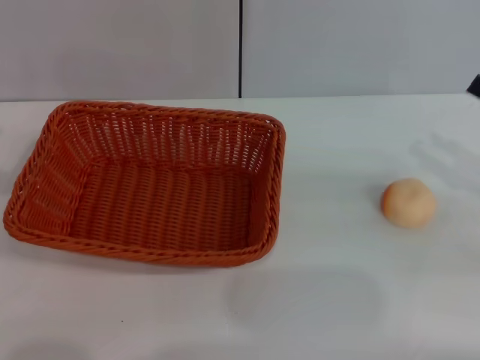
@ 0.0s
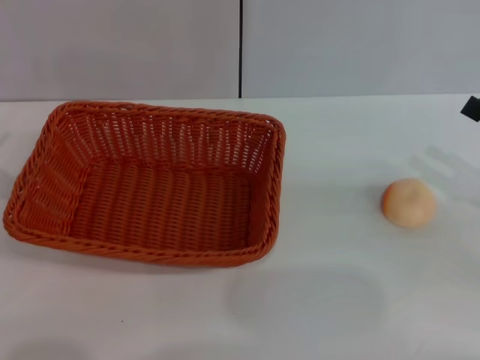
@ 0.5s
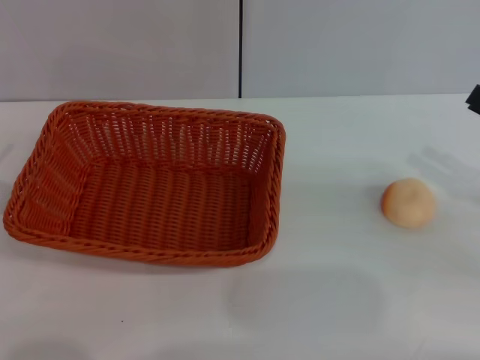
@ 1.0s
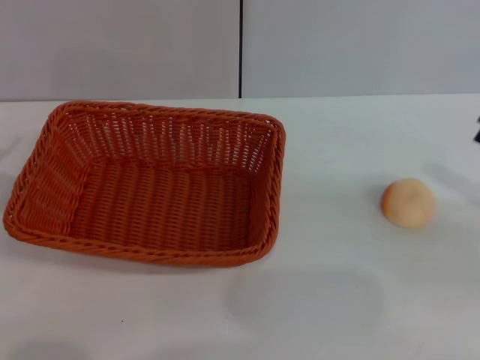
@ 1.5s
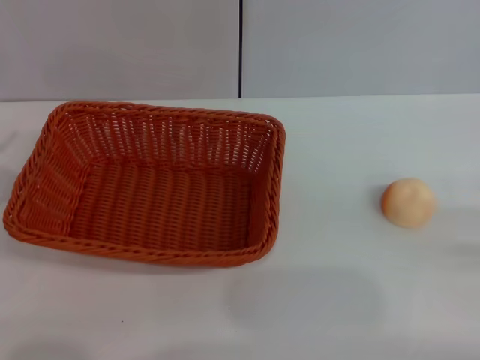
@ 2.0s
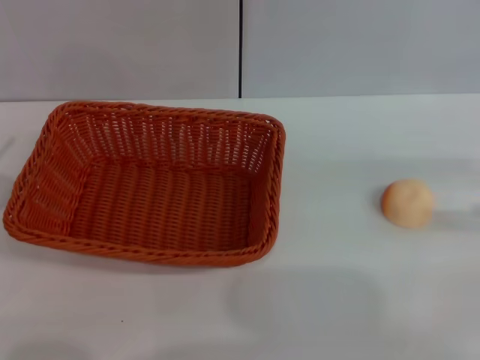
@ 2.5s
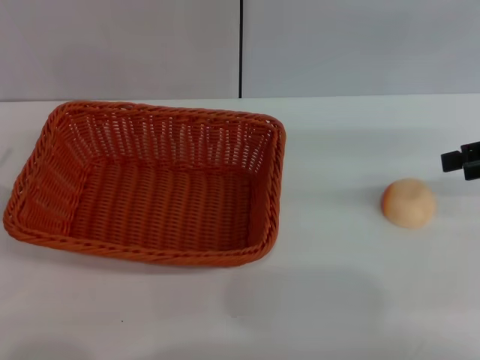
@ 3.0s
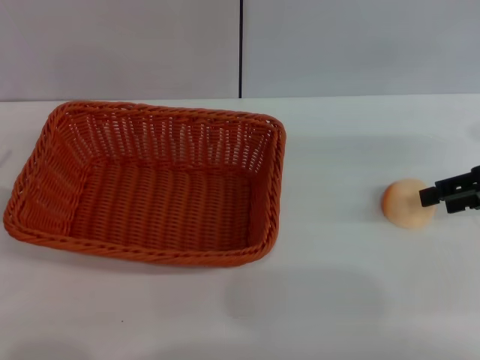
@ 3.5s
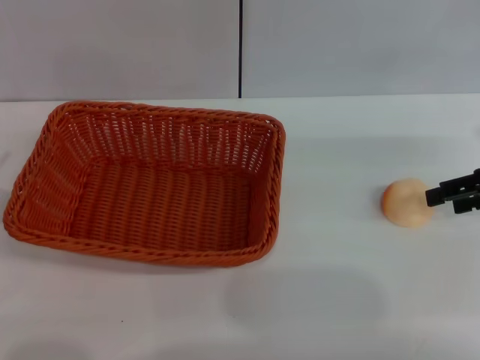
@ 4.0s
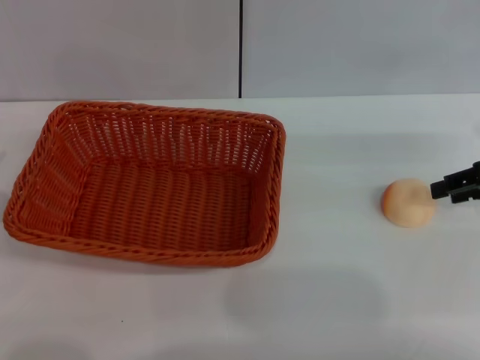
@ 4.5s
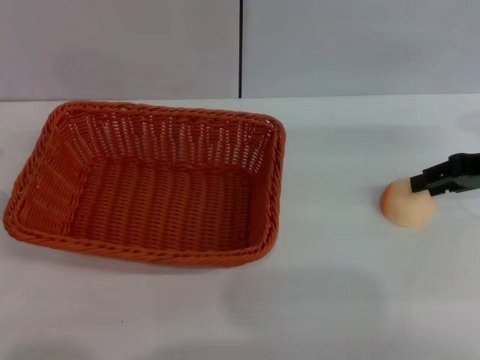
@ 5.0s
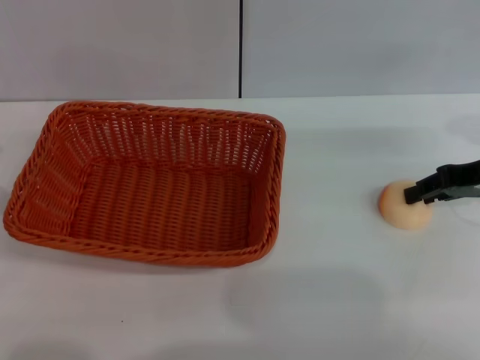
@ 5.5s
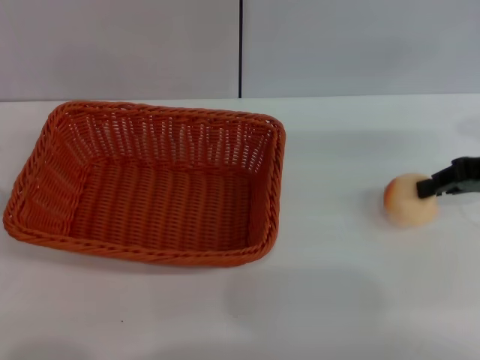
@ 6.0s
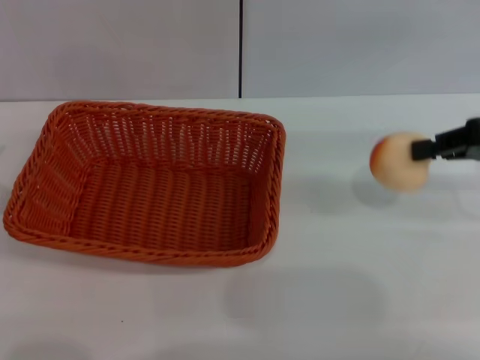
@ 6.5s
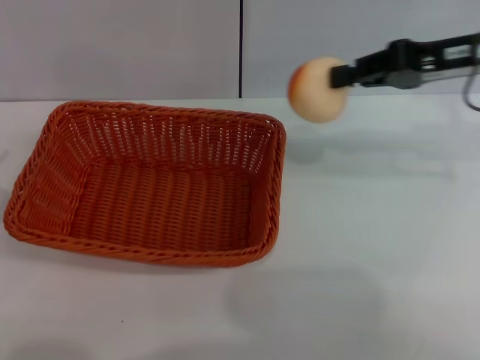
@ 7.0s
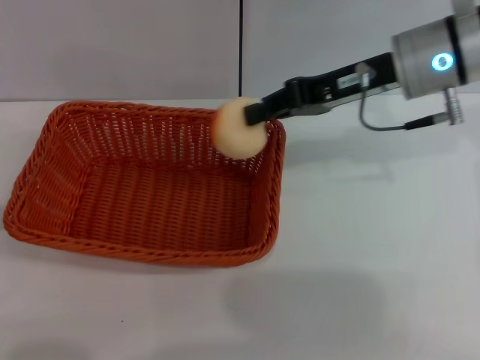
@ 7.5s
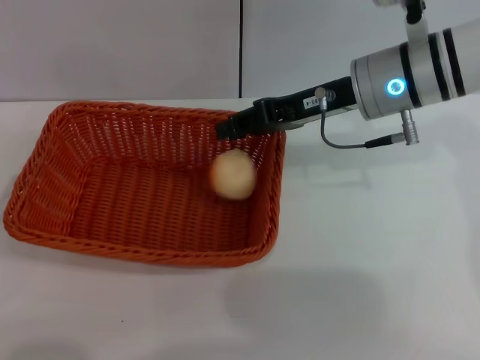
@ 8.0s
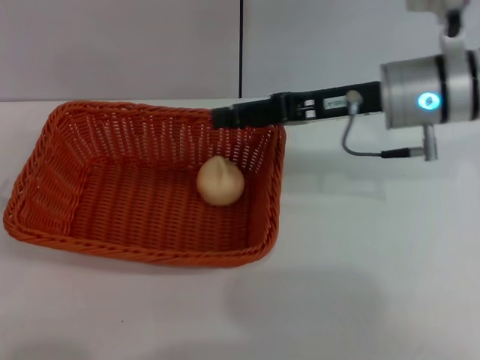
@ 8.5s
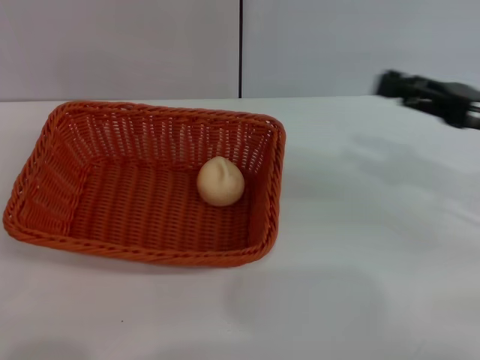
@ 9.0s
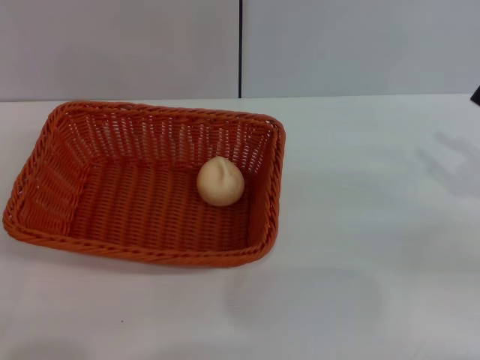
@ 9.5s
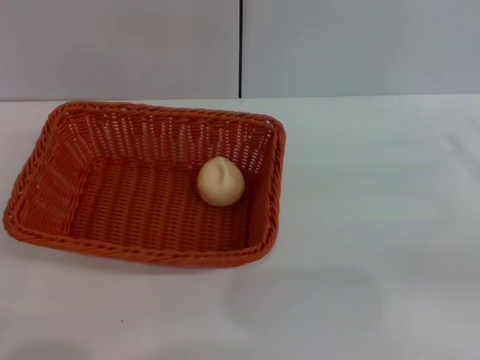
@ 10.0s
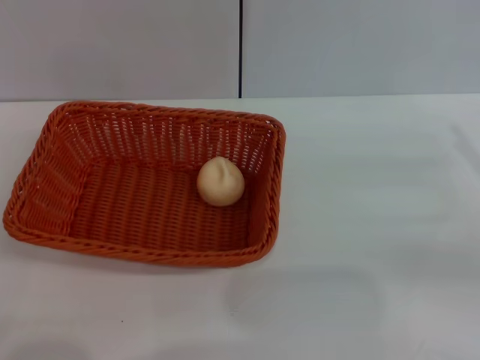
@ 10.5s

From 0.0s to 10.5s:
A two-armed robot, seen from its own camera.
Step, from 0.0s to 6.0s: Pick up the egg yolk pastry with the right gripper.
Step, from 6.5s to 8.5s: Place the egg yolk pastry into the basket with the right gripper.
From 2.0s to 4.0s: The right gripper moves forward and to the left, some 15 cm.
From 4.0s to 6.5s: The right gripper closes.
From 6.5s to 8.5s: The right gripper travels to the left by about 15 cm, and opens its fingers.
From 8.5s to 10.5s: The left gripper travels backward by some 5 cm. Meanwhile the right gripper travels to the right and backward by about 25 cm.

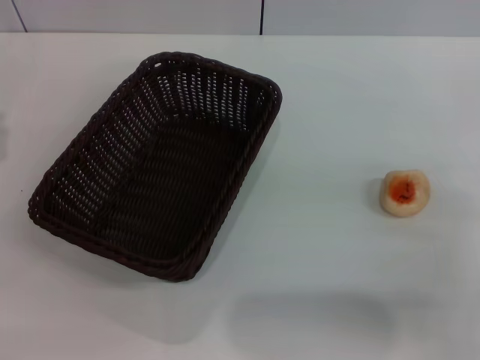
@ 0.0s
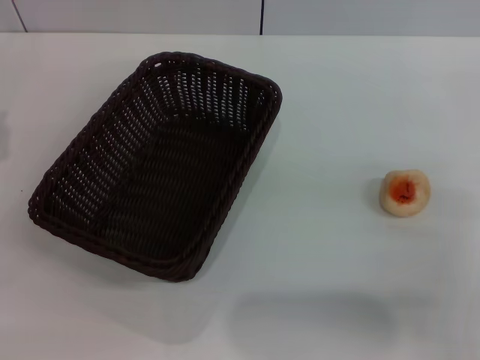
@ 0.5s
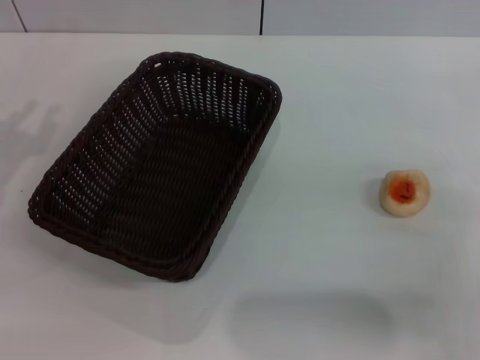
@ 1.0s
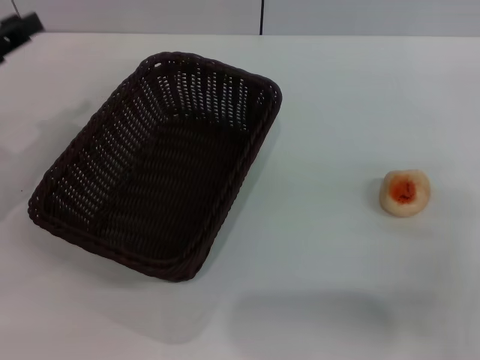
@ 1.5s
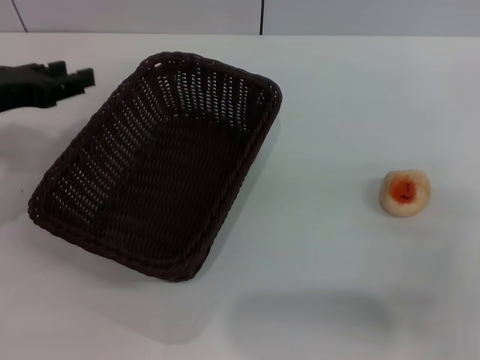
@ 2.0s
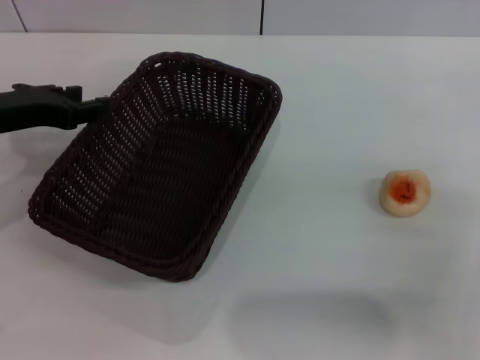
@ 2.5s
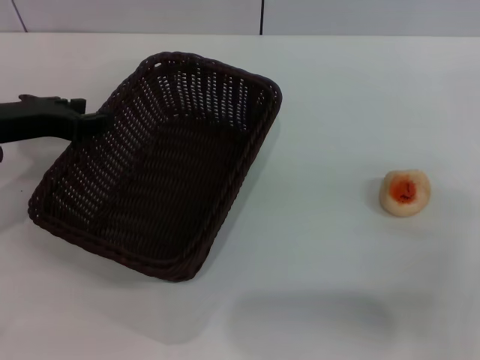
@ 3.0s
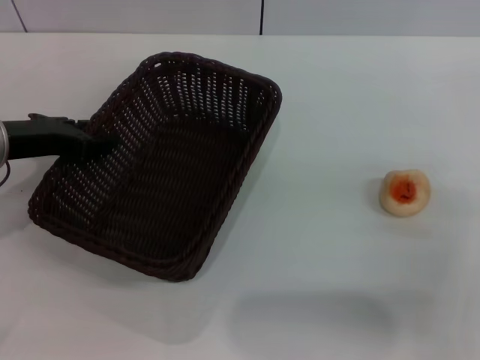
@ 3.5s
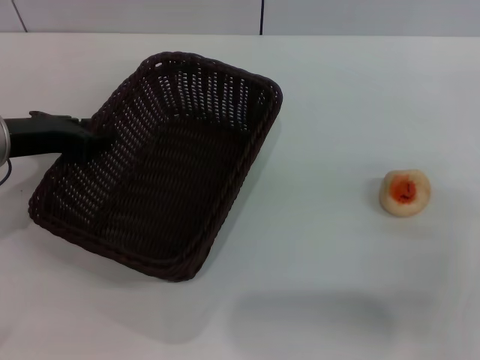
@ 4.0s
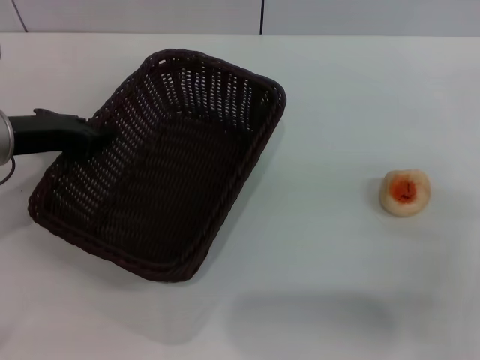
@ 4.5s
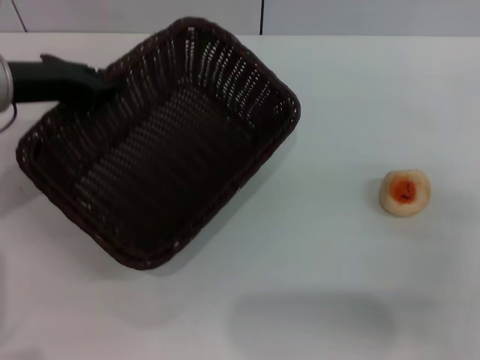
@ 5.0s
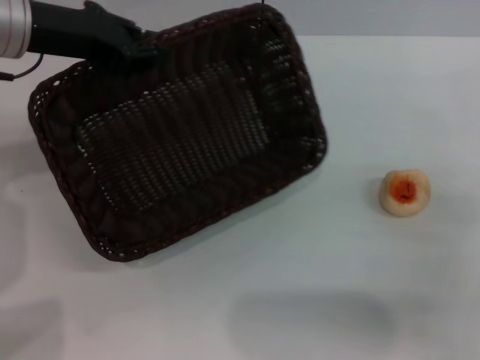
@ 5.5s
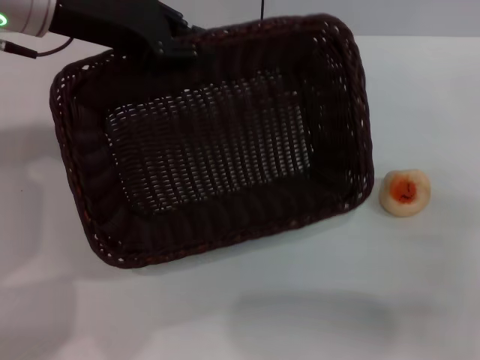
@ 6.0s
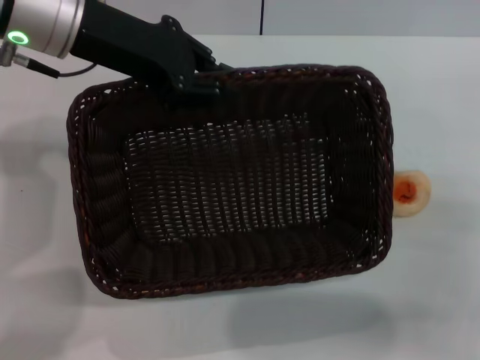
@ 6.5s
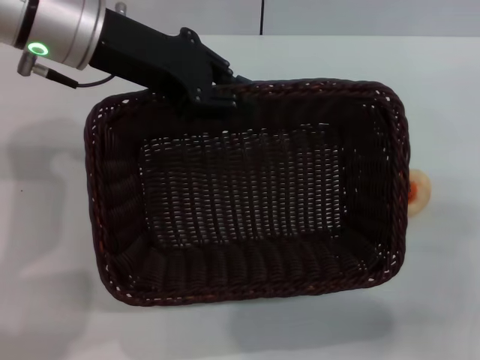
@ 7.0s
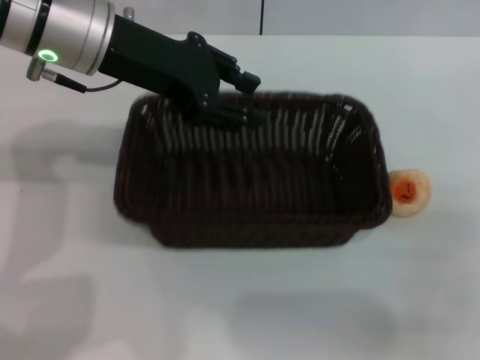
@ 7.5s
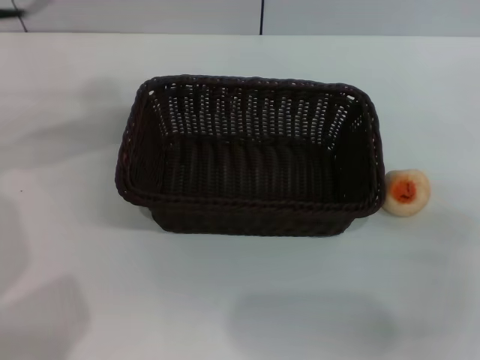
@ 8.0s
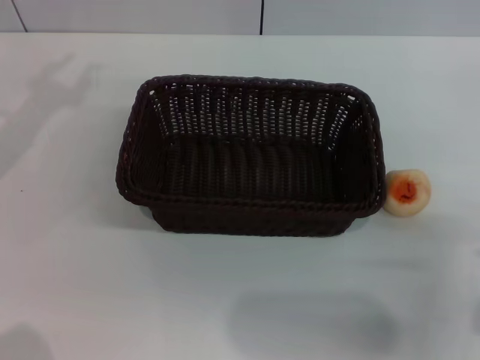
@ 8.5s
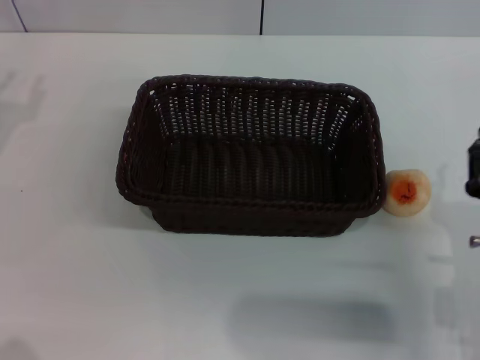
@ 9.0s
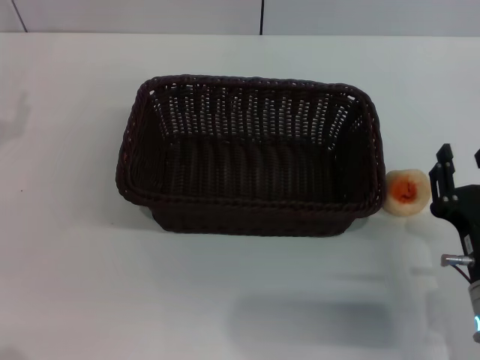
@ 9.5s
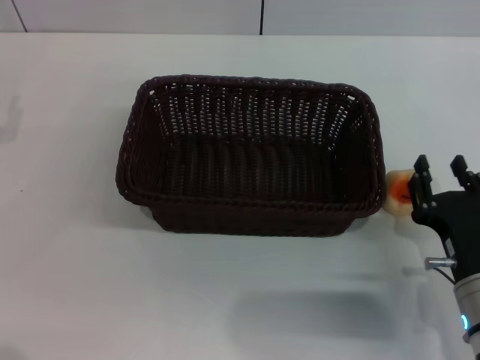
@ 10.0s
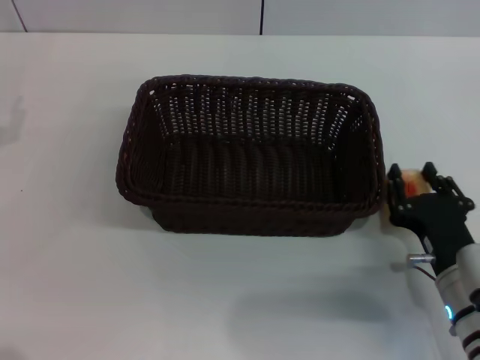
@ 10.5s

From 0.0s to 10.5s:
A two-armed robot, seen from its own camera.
Step, from 0.0s to 7.5s: Move the basket to the center of view with the left gripper.
From 0.0s to 2.0s: The left gripper shifts about 10 cm upward, forward and to the right.
From 2.0s to 4.0s: The grippers stay close to where they were, moving slightly.
From 4.0s to 6.5s: The left gripper goes about 15 cm upward and to the right, and closes up.
From 6.5s to 8.5s: The left gripper heads to the left, covering about 15 cm, and opens up.
From 8.5s to 10.5s: The right gripper goes about 5 cm downward.

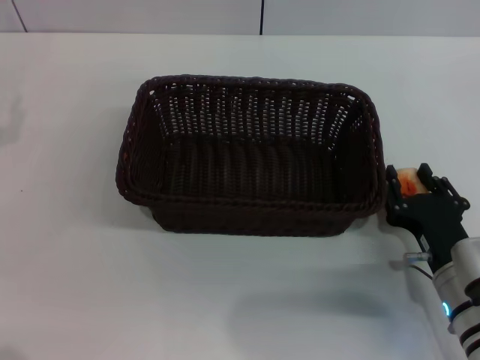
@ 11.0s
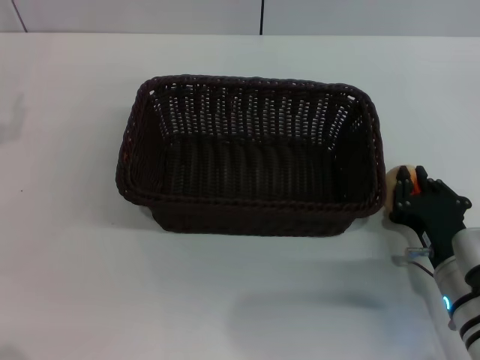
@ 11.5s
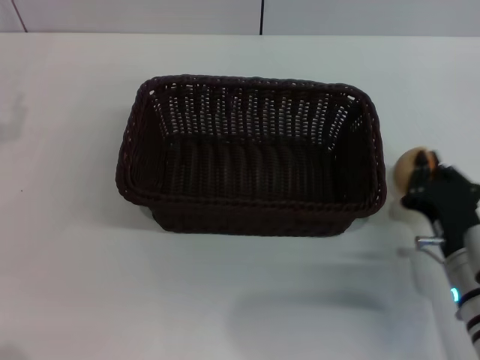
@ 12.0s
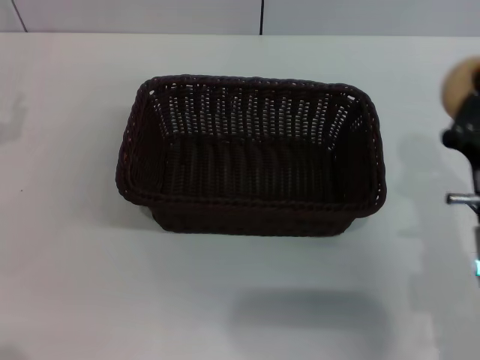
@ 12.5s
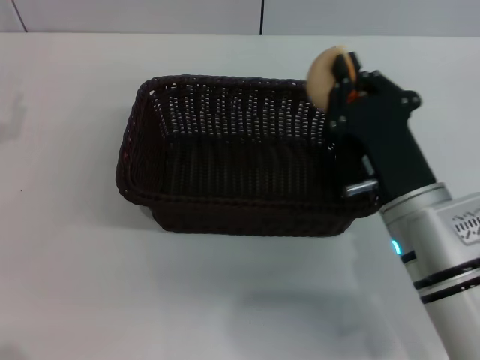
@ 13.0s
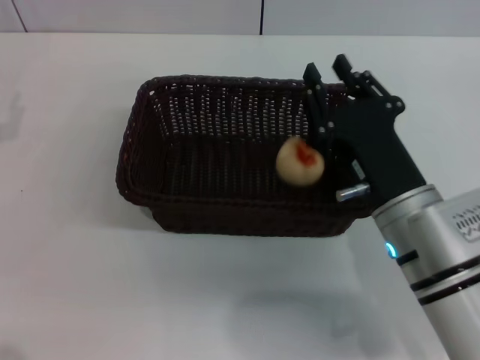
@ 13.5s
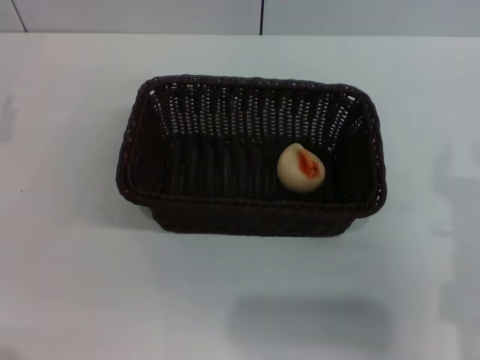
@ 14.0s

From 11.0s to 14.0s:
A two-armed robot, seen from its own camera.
Step, from 12.5s to 13.5s: Place the egg yolk pastry into the basket with the right gripper.
From 11.0s to 12.5s: The right gripper goes approximately 5 cm upward, and closes up.
From 12.5s to 14.0s: The right gripper opens.
